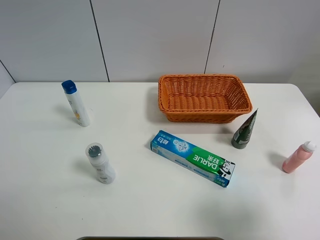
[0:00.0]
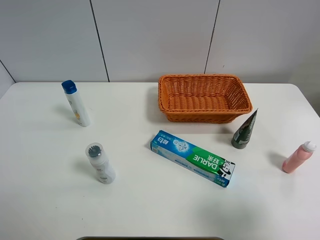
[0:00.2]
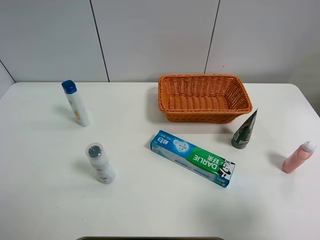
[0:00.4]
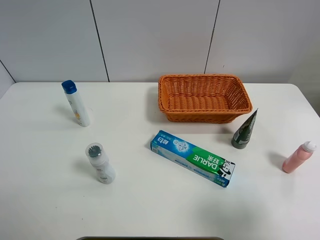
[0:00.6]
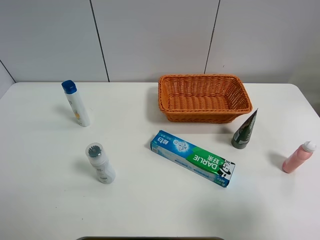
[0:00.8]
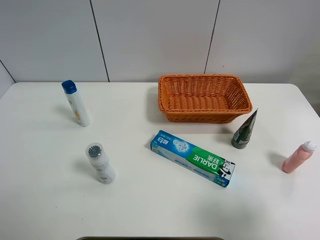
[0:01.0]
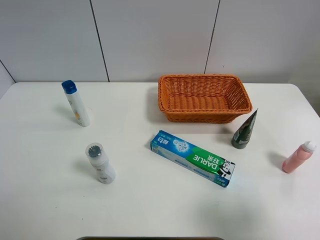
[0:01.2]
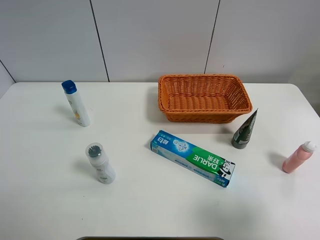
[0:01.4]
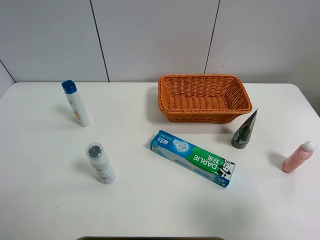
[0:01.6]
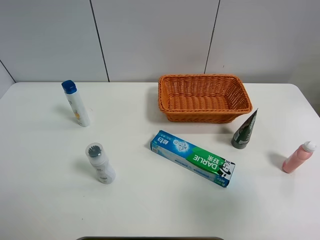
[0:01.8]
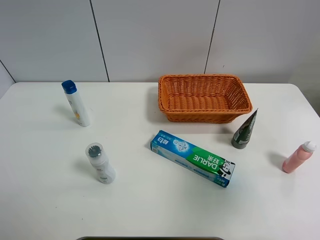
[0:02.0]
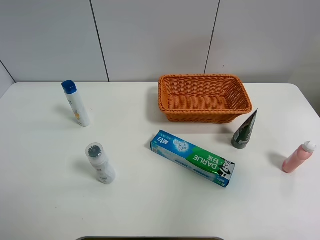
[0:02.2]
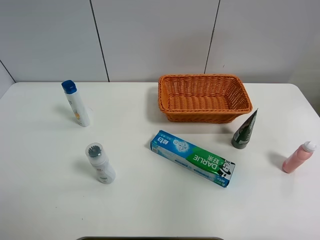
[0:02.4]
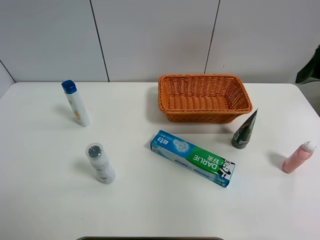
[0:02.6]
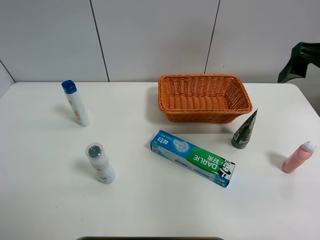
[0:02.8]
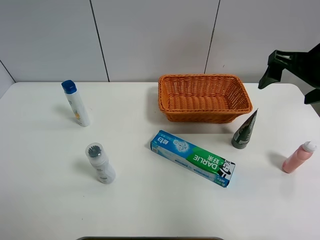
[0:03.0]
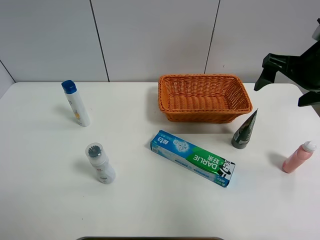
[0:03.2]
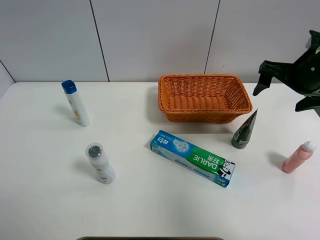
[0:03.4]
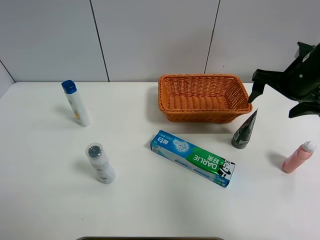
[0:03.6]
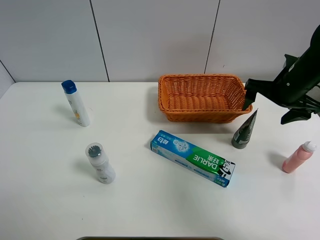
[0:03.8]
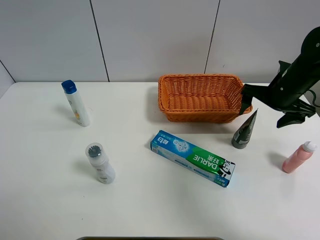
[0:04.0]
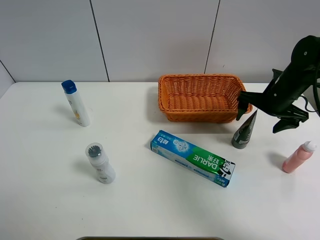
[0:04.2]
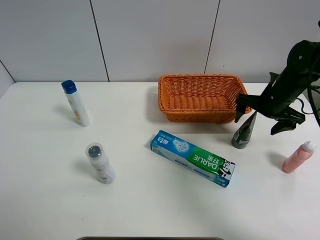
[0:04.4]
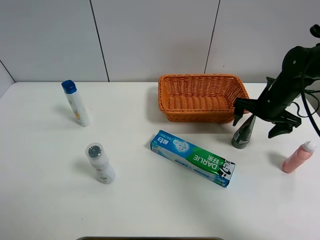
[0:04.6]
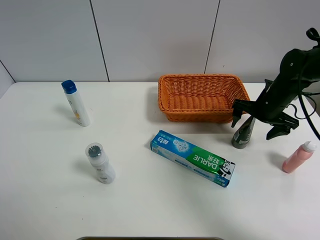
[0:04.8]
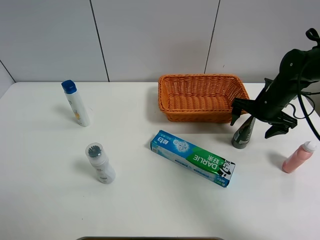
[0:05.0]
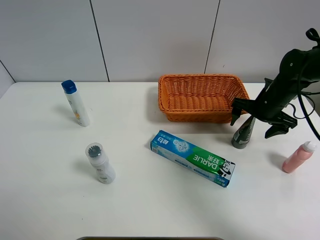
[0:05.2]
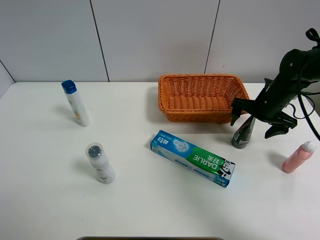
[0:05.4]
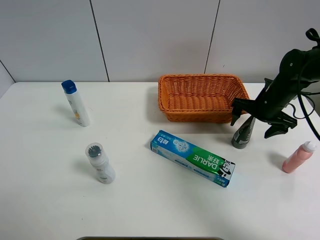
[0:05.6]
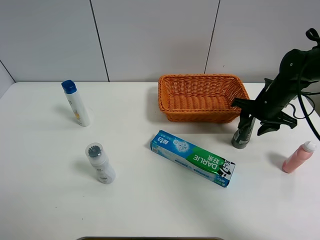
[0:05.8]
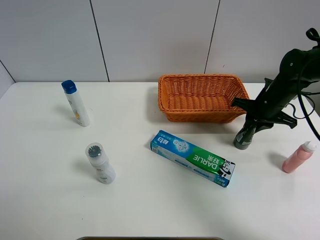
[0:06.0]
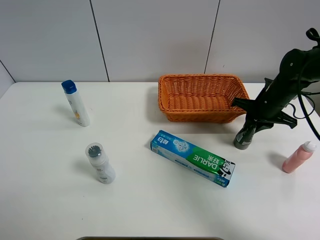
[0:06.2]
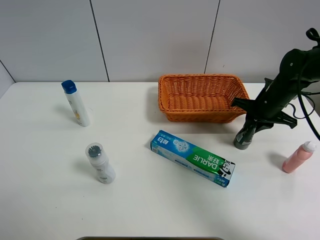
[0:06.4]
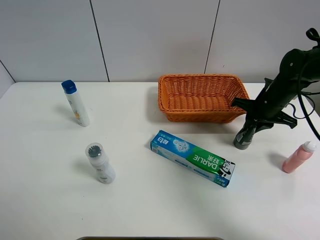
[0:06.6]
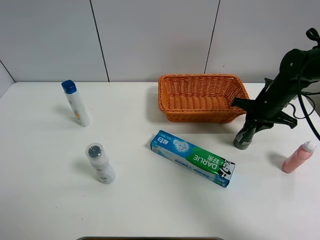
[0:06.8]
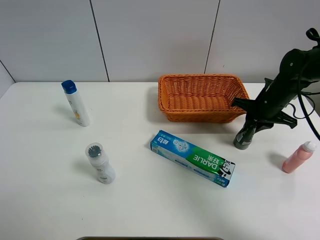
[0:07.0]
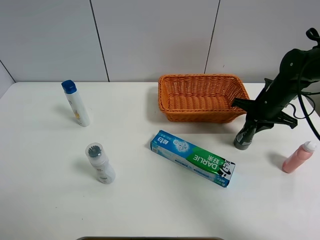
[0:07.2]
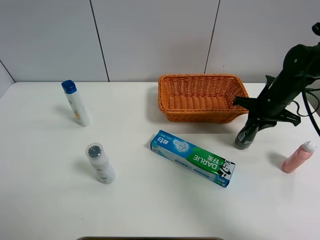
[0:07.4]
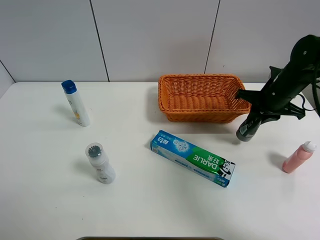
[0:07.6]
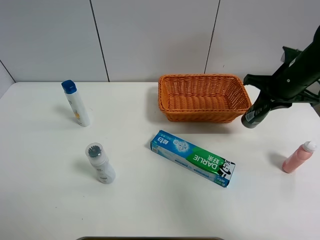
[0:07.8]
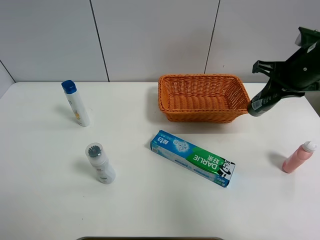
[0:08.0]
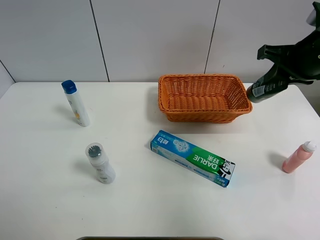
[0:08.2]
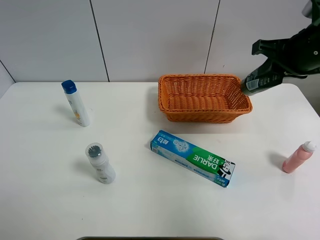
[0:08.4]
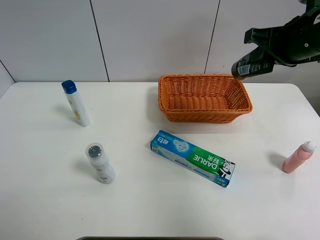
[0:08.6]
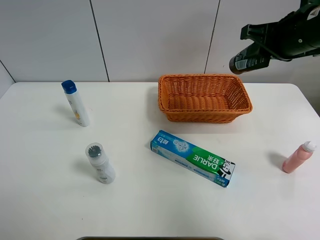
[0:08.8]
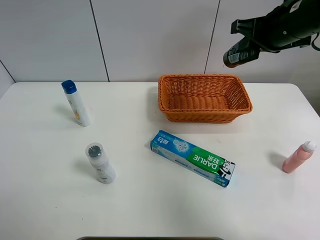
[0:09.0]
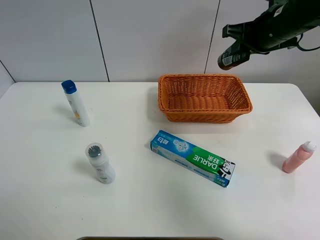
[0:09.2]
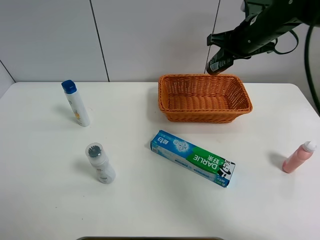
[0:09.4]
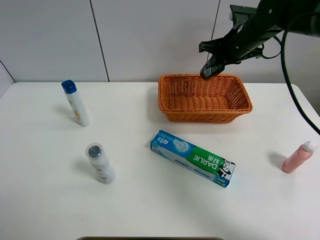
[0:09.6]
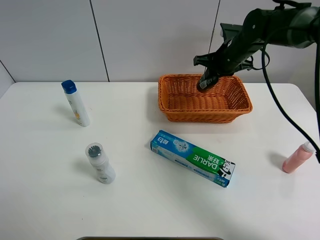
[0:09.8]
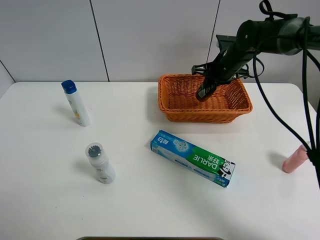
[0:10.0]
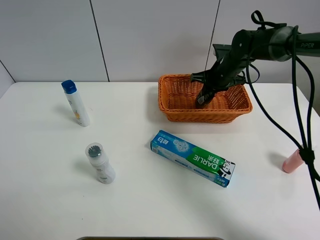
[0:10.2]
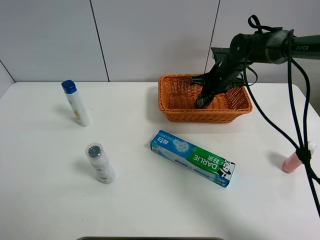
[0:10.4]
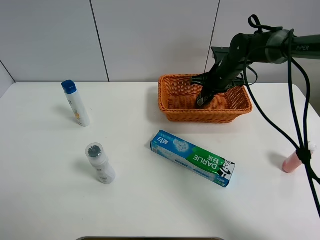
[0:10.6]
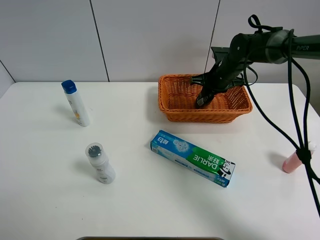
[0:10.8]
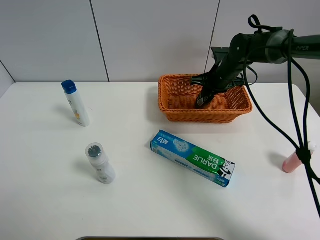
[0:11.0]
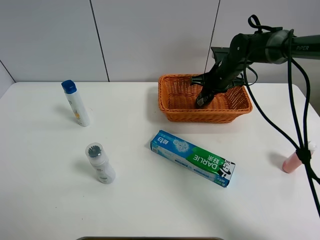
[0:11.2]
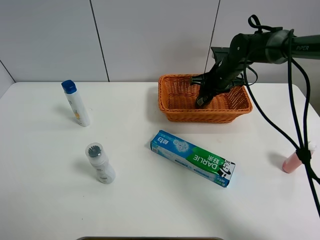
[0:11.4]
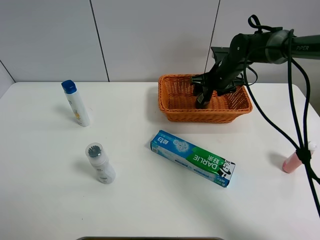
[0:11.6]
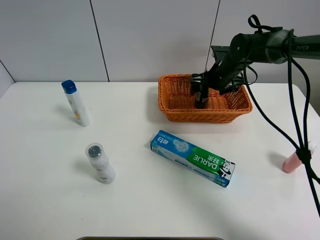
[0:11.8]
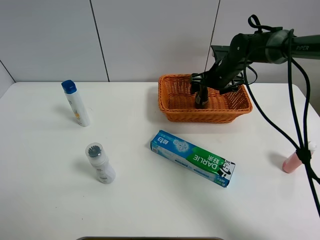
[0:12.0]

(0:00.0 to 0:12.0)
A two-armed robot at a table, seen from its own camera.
Task of the whole recording: Place the object closest to the toothpaste in the basket.
Step, 0:00.0 - 0:06.2: Grasp the soft facial cleanser with right gripper.
0:01.6 - 0:03.0: The right gripper moves forward, about 25 cm.
0:03.0 - 0:04.4: The right gripper goes roughly 15 cm downward and forward.
0:04.4 - 0:06.0: The right gripper closes.
0:06.0 - 0:07.6: The grippers make only small movements.
0:07.6 - 0:09.0: The right gripper goes roughly 15 cm upward.
0:09.0 - 0:10.4: The right gripper moves downward and forward, about 20 cm.
0:10.4 - 0:12.0: The right gripper opens its fingers.

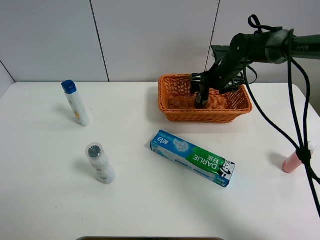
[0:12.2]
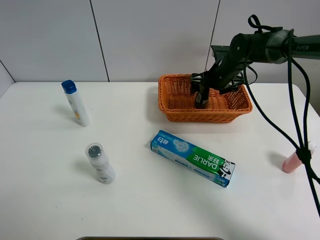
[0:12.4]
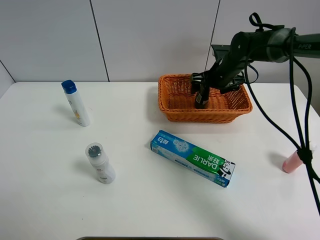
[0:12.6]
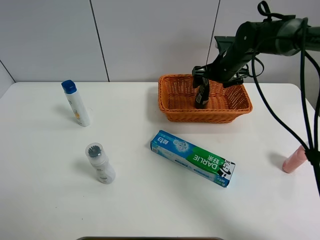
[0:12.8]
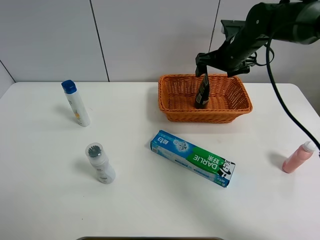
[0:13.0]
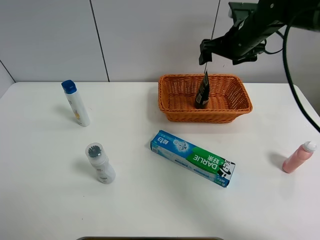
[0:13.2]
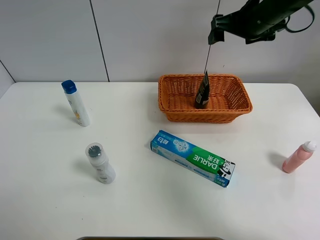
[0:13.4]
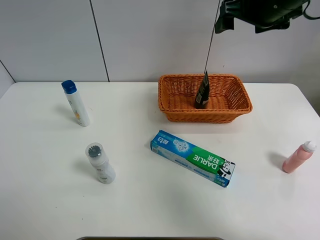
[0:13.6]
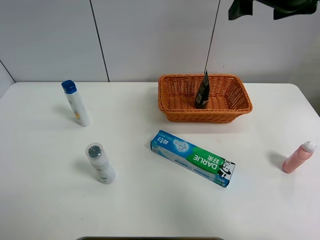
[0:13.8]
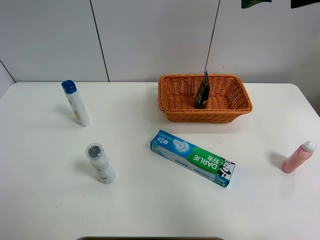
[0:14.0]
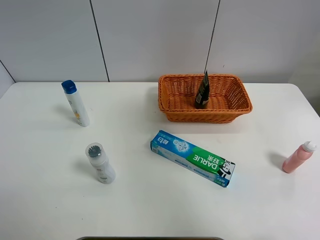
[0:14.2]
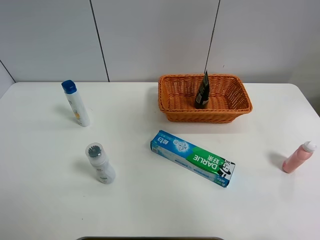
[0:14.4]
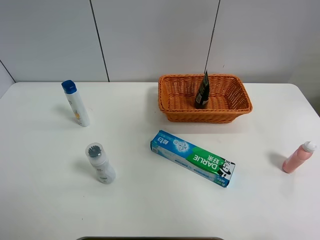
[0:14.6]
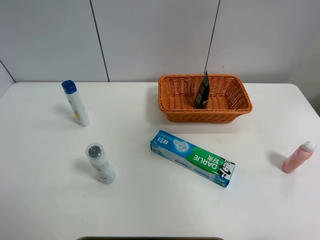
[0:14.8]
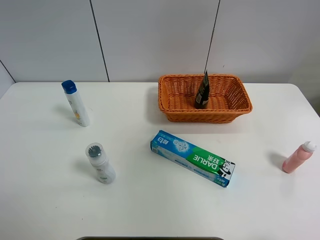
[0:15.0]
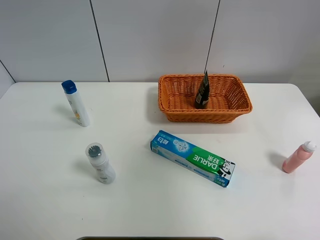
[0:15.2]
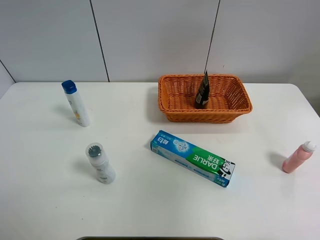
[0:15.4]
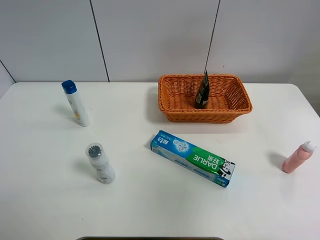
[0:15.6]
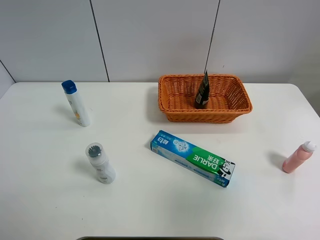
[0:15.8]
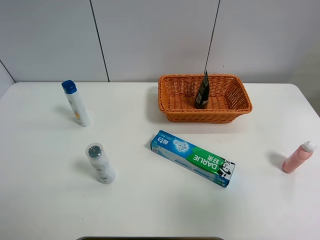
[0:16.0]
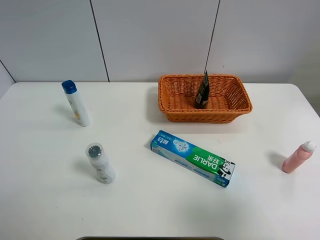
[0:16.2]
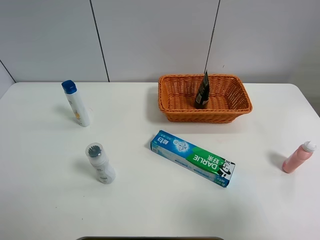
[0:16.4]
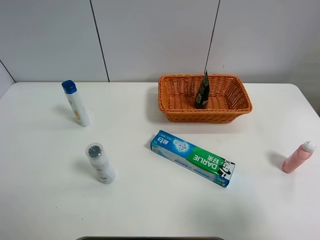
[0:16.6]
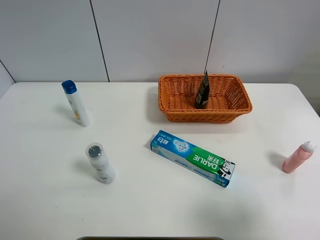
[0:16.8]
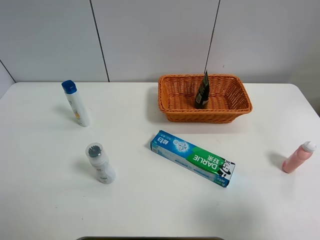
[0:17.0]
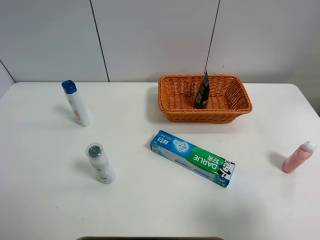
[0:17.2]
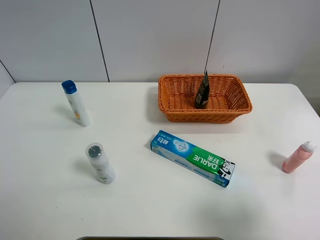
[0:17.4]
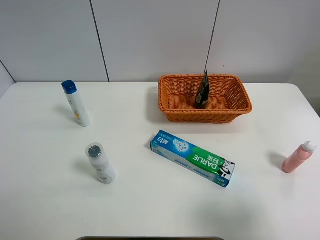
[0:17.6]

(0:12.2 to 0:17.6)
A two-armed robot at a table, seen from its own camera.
Task of the whole recording: Place the object closest to the toothpaste in the basket.
0:12.2 - 0:13.6: The right gripper heads upward and backward, covering roughly 20 cm.
0:13.6 - 0:15.0: The right gripper is displaced backward and upward by some 30 cm.
0:15.0 - 0:16.2: The right gripper travels downward and backward by about 20 cm.
